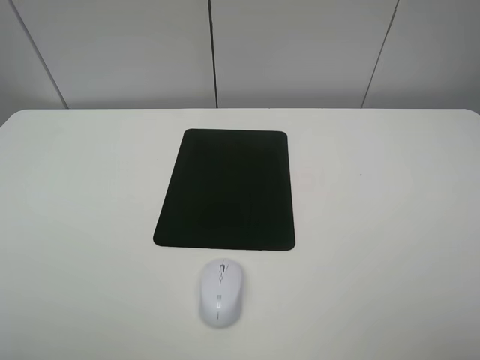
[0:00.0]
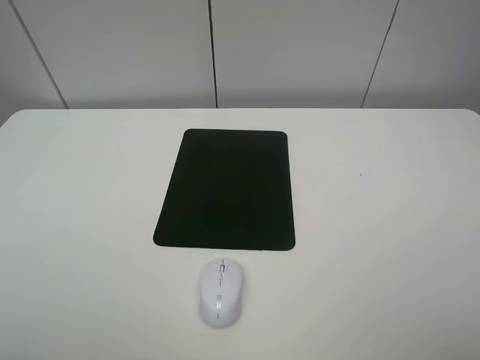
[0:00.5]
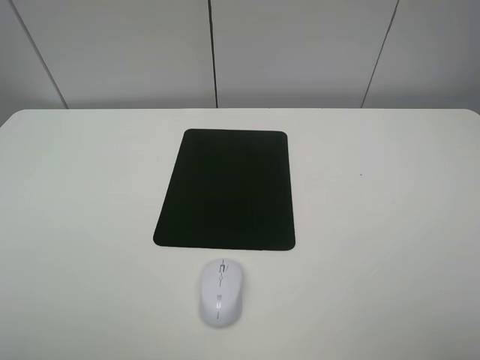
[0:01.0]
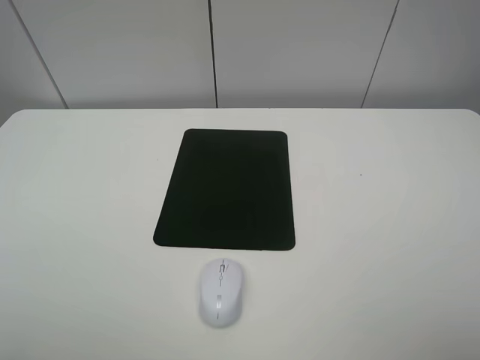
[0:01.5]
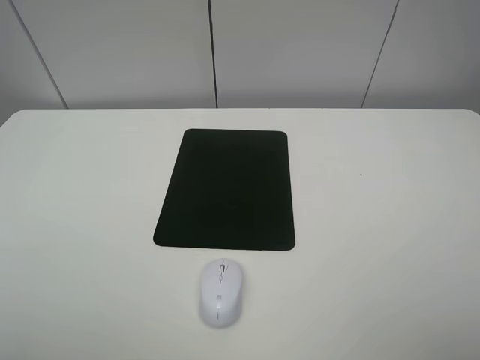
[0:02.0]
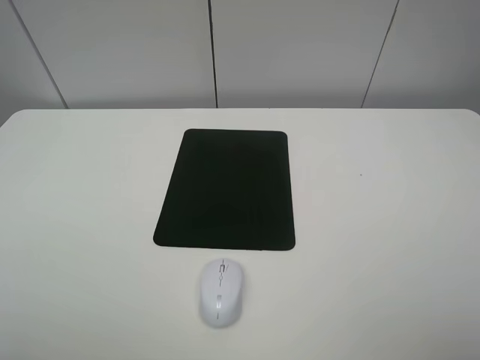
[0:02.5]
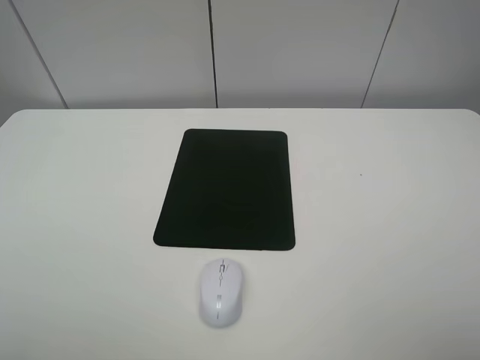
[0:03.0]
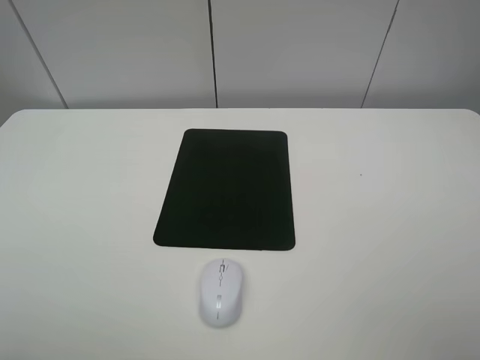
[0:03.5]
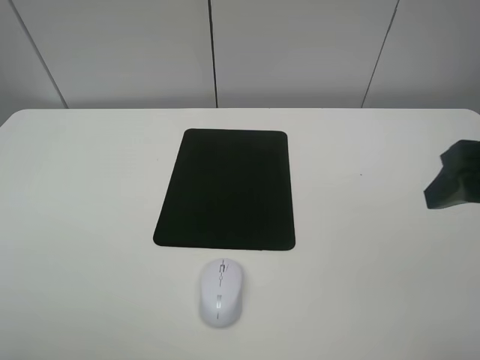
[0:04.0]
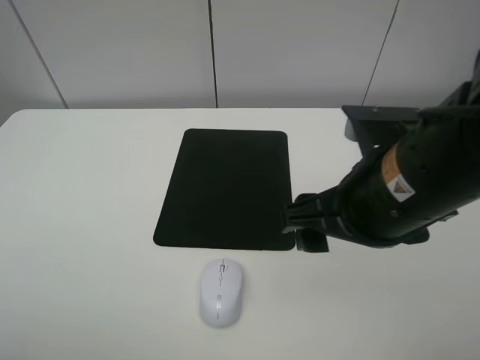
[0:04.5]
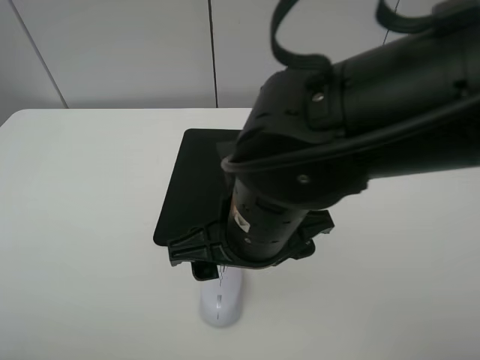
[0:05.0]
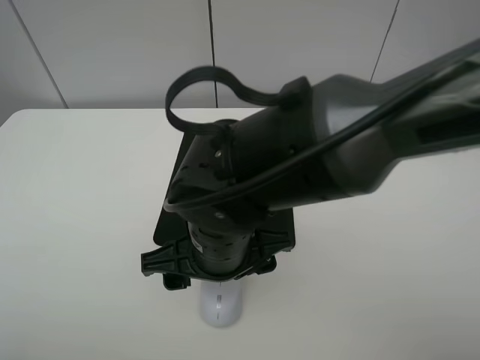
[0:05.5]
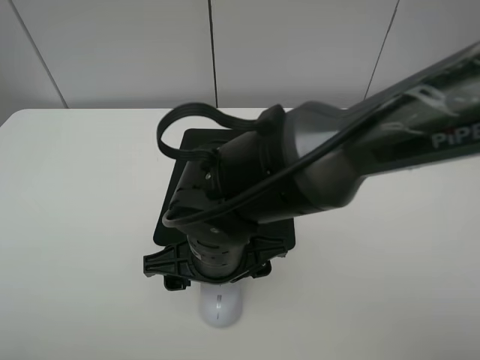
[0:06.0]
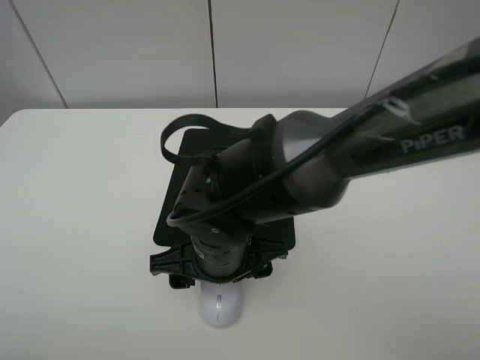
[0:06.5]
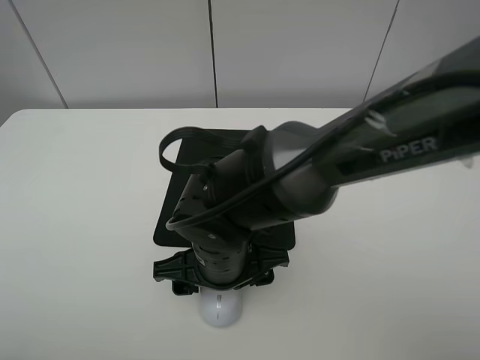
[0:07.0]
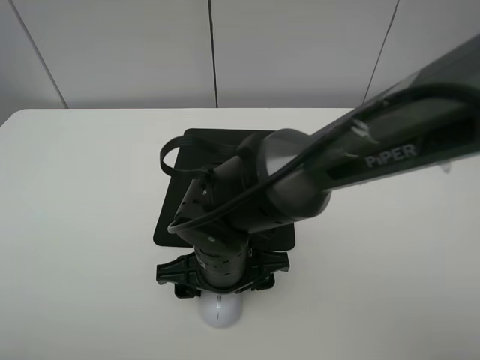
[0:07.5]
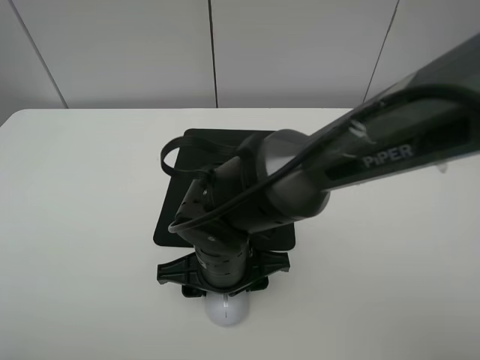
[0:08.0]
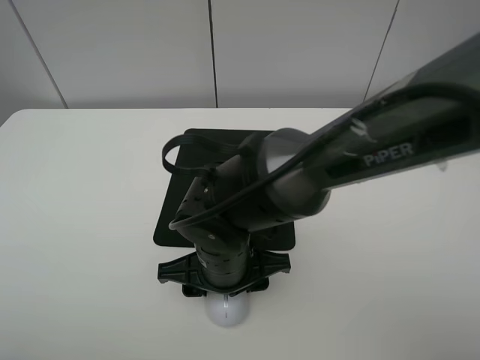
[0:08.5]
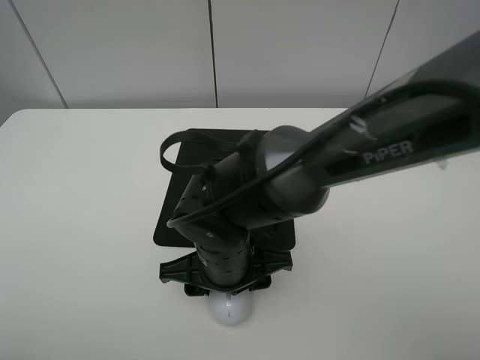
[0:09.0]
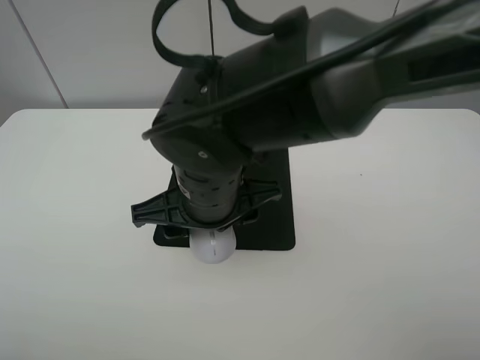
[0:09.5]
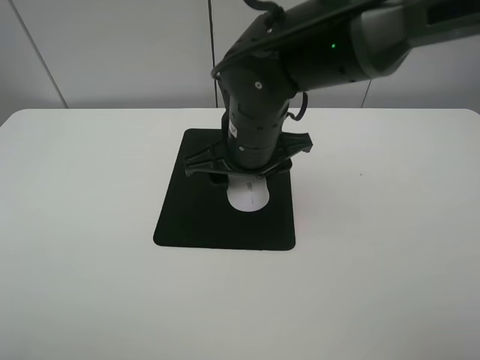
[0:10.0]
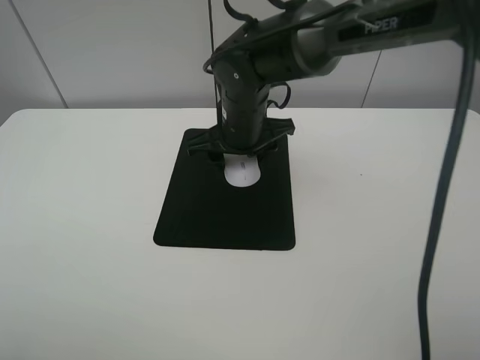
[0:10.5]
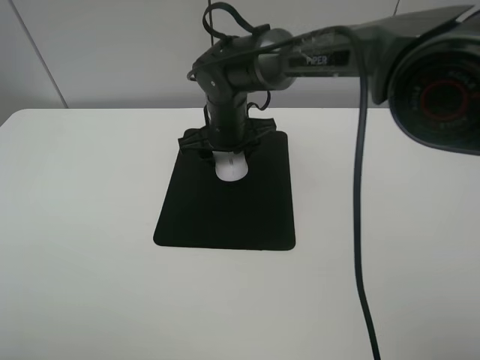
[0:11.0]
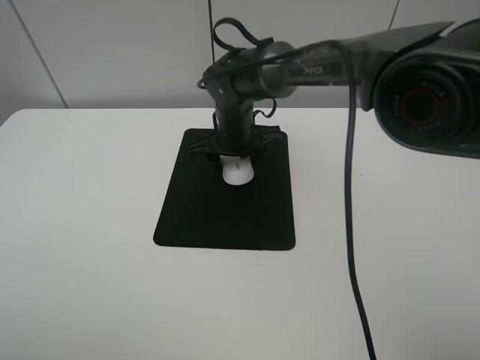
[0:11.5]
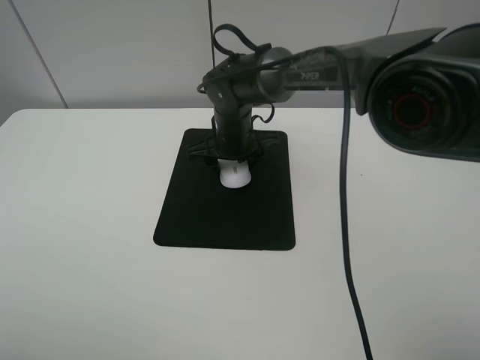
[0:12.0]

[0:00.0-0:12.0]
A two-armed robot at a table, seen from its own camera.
Step, 0:00.0 to 0:08.5: Grasp the mouse with the right gripper.
0:00.0 to 0:02.0: Both grippers stay put.
0:02.0 to 0:04.0: The right gripper heads forward, covering approximately 15 cm.
0:04.0 to 0:06.0: The right gripper goes approximately 30 cm to the left and downward.
0:06.0 to 0:08.0: The right gripper closes up.
0:08.0 to 0:10.0: The right gripper is displaced forward and upward by some 15 cm.
0:10.0 to 0:12.0: The right gripper travels forward and downward by roughly 15 cm.

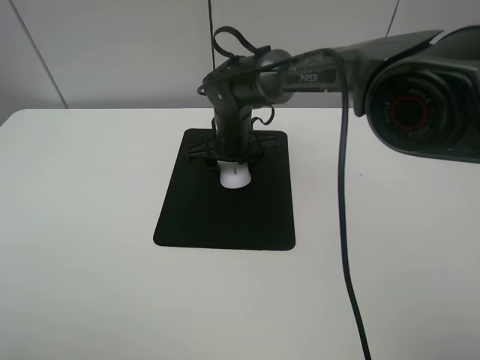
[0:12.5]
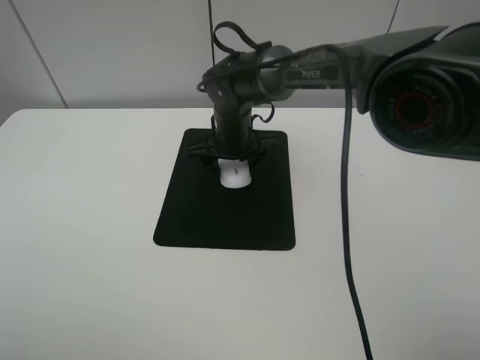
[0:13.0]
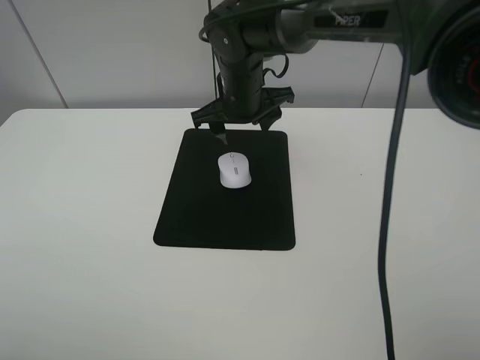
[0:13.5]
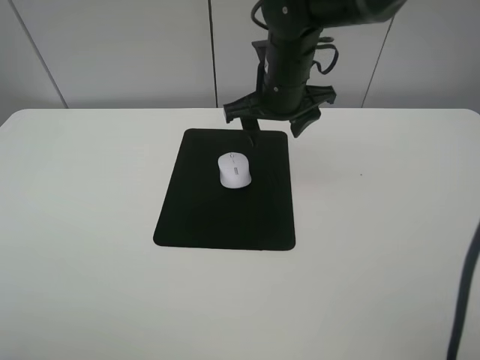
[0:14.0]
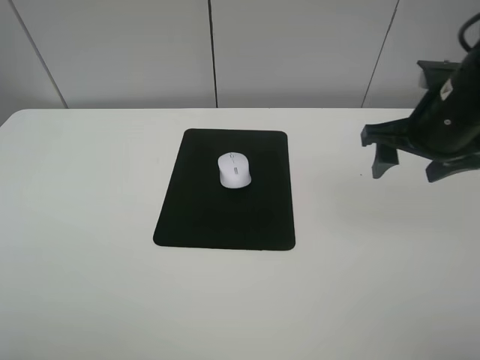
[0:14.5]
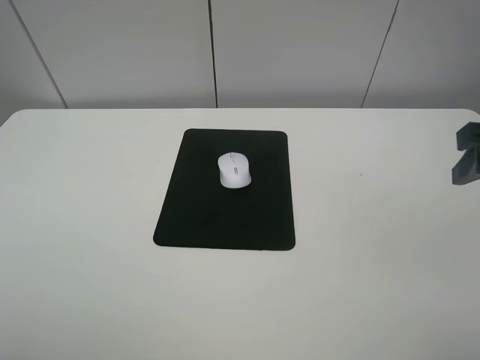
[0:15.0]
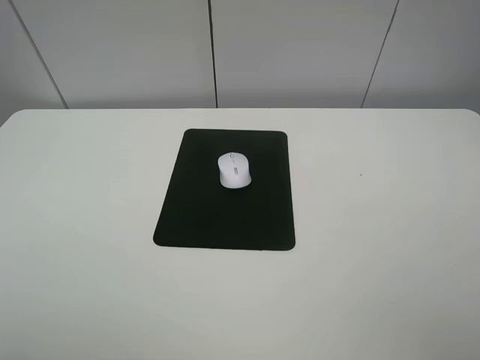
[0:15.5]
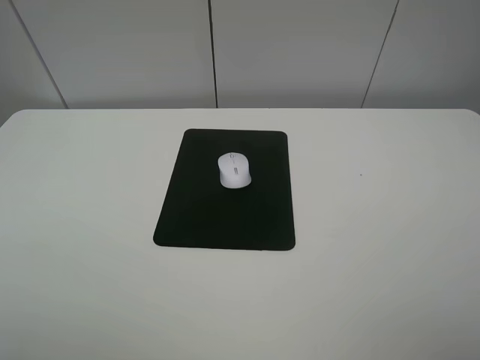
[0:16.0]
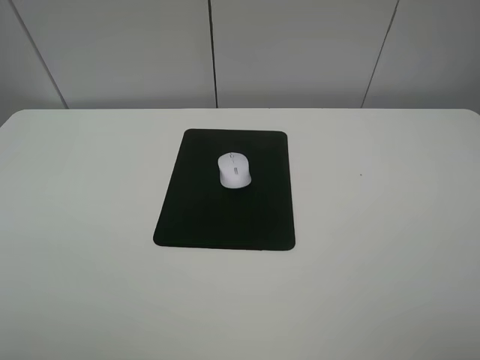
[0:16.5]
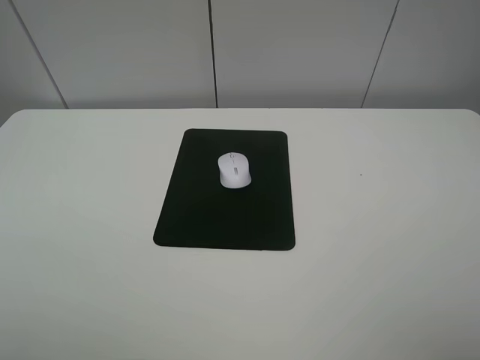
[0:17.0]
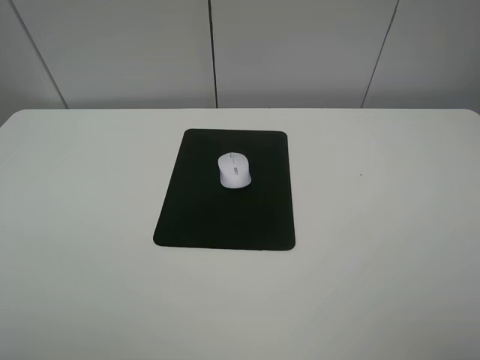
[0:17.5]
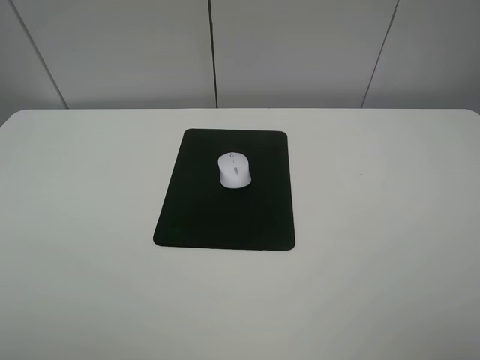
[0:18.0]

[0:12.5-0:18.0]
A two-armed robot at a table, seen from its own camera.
0:12.5 to 0:14.5: The right gripper is displaced to the right, backward and upward by roughly 30 cm, and opens up.
0:14.5 to 0:16.0: The right gripper heads backward, covering approximately 25 cm.

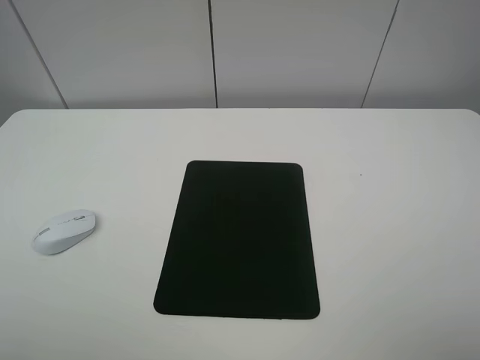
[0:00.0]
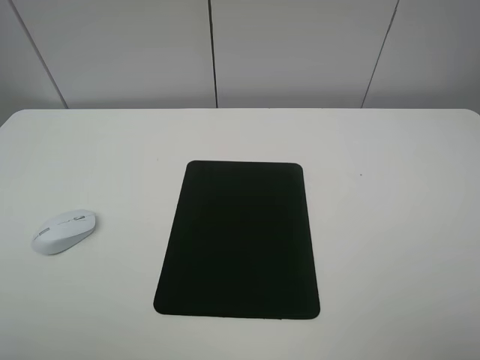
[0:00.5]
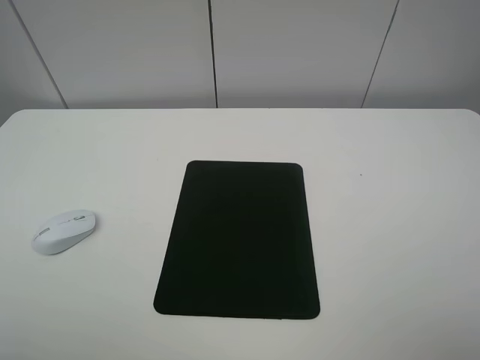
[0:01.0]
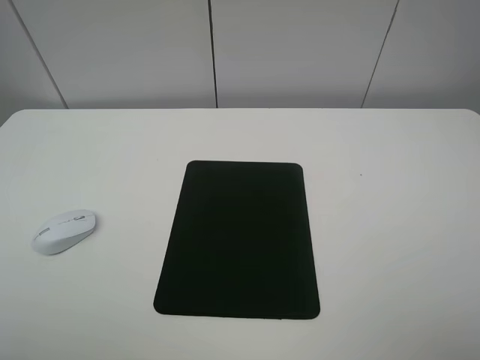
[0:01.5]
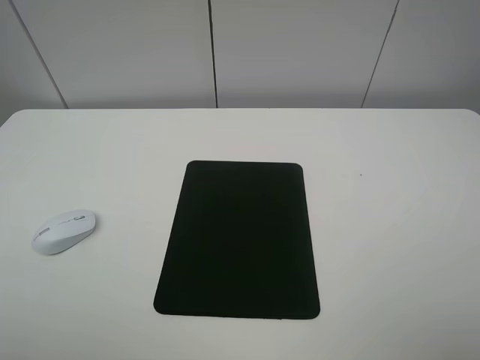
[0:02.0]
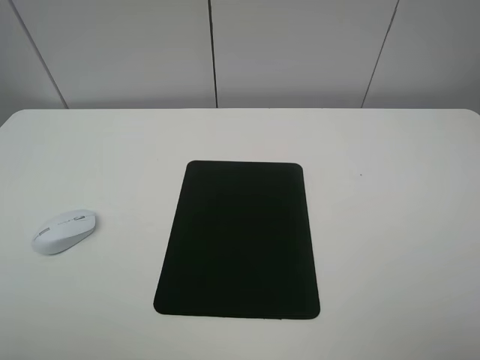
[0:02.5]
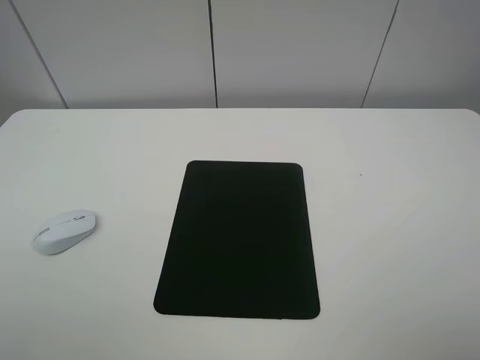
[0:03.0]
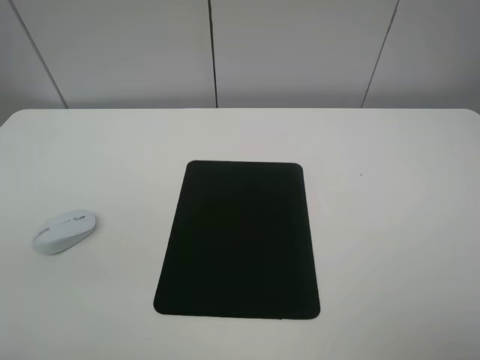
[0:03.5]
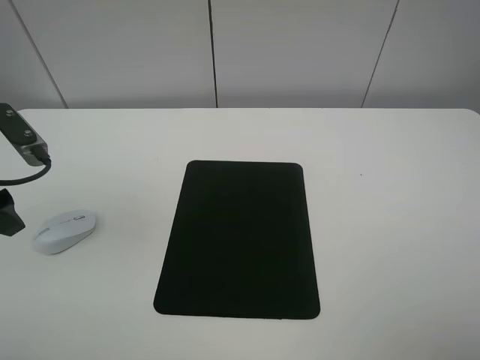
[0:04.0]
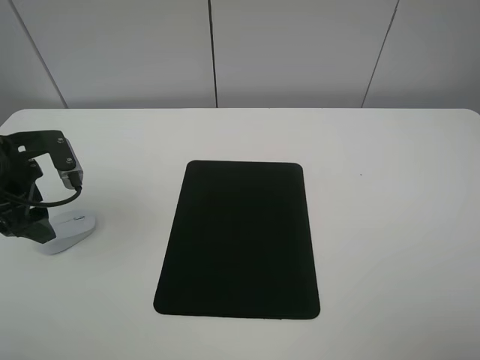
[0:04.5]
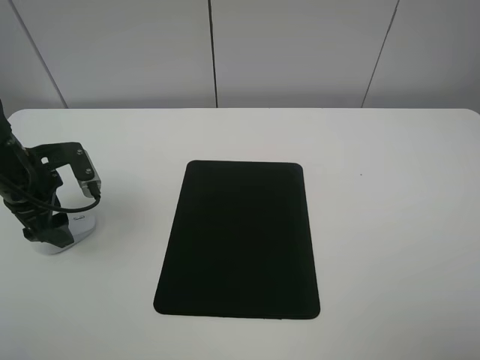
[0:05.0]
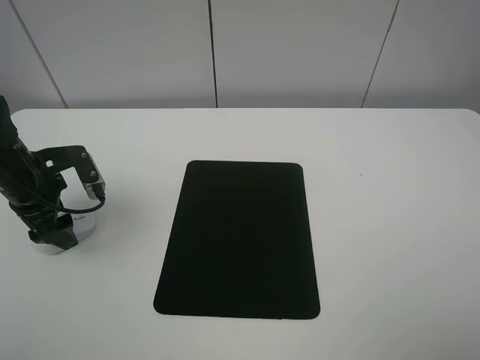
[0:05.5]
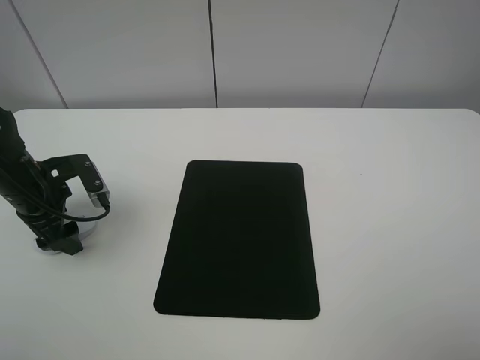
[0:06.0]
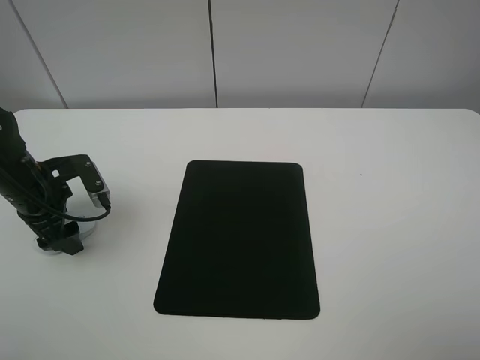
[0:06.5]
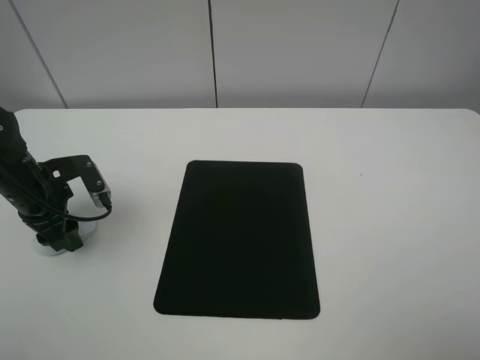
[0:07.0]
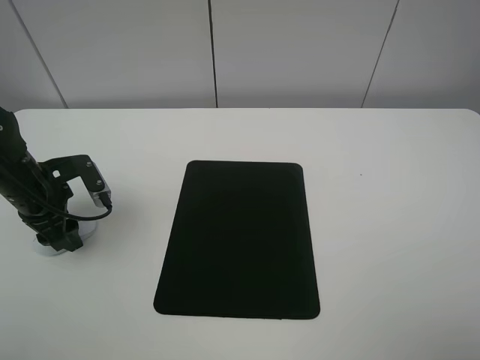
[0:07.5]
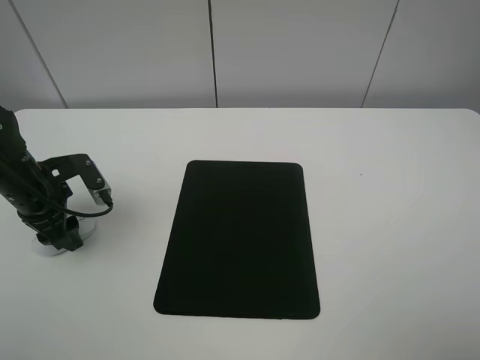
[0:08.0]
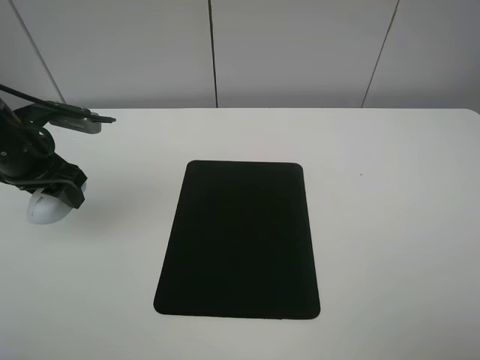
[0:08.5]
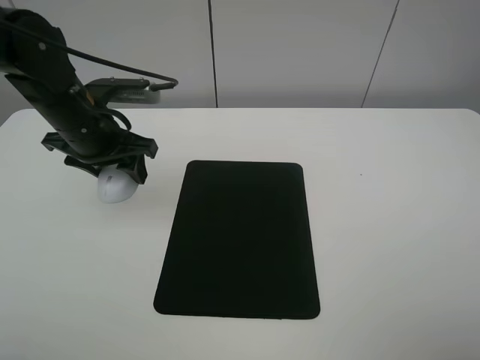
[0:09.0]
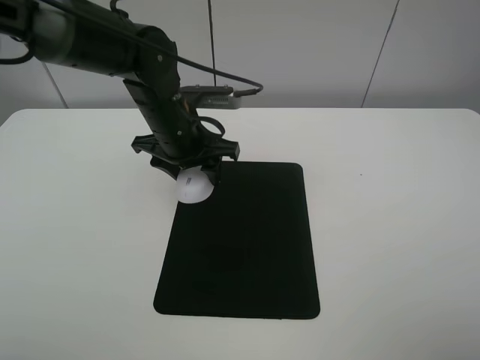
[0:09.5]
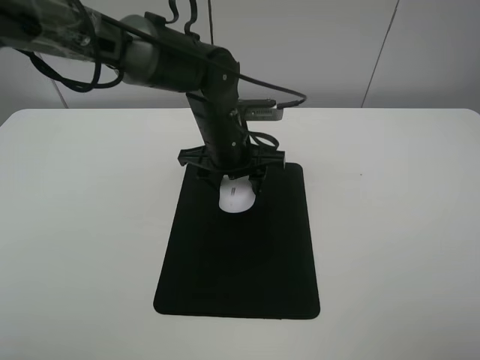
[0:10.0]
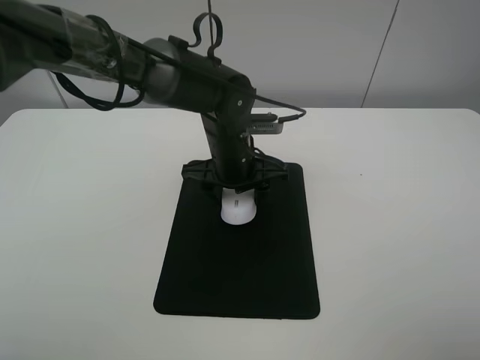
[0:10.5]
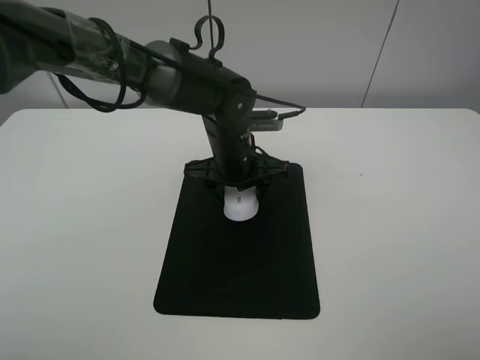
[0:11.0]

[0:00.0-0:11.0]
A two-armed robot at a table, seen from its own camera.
Step, 0:00.0 to 0:07.5: Grasp the mouse with the left gripper.
0:00.0 to 0:02.0: Neither gripper changes place.
0:03.5 to 0:05.5: The left gripper moves downward and forward, about 20 cm.
0:05.5 to 0:07.5: The left gripper closes up.
0:07.5 to 0:09.0: The left gripper shifts about 15 cm to the right and upward.
0:09.0 to 0:11.0: The left gripper moves to the right, roughly 20 cm.
